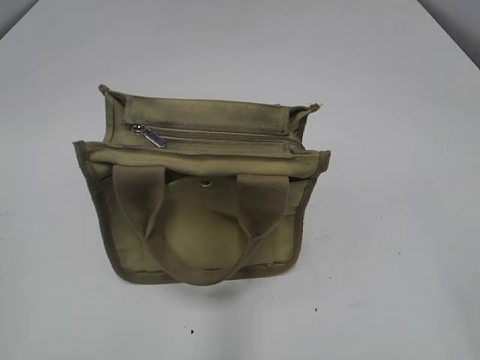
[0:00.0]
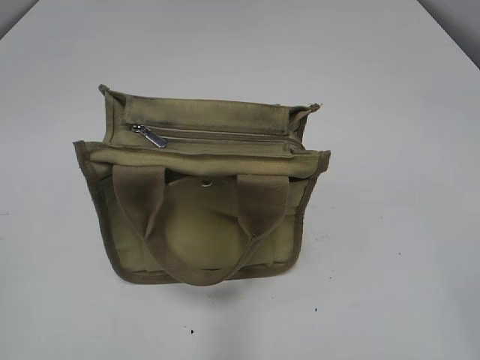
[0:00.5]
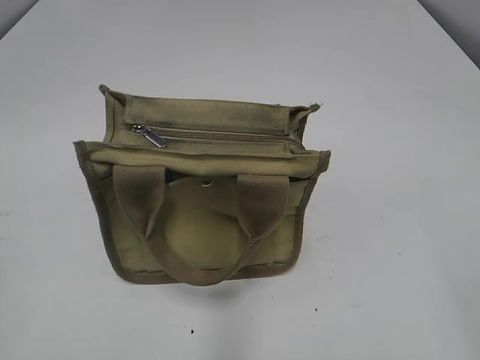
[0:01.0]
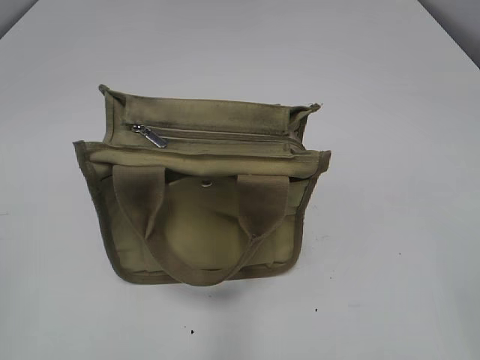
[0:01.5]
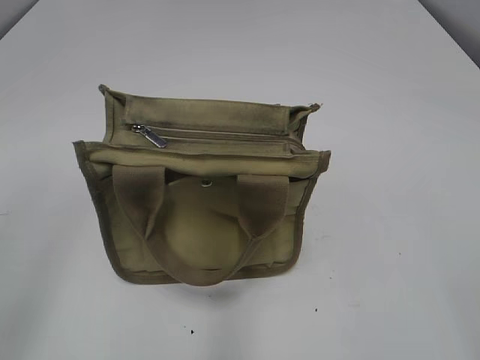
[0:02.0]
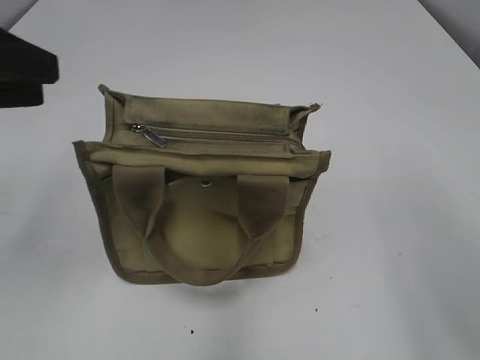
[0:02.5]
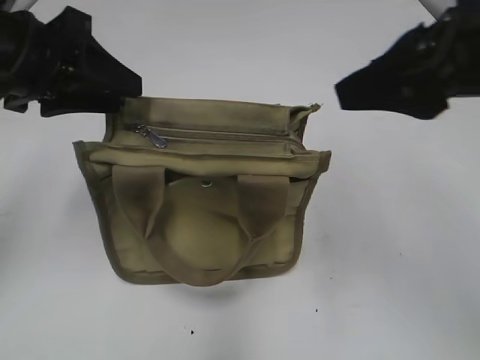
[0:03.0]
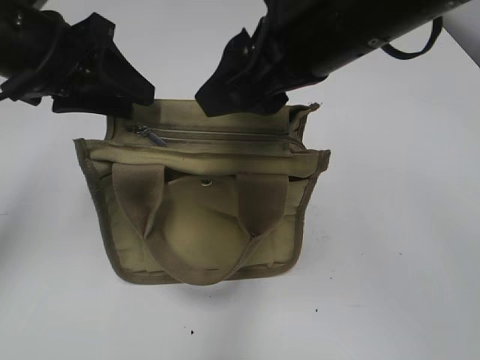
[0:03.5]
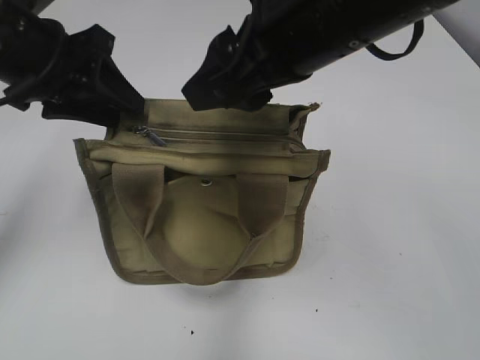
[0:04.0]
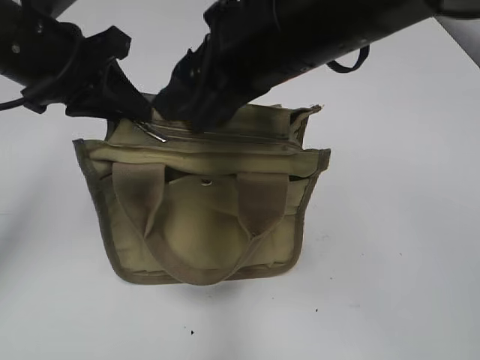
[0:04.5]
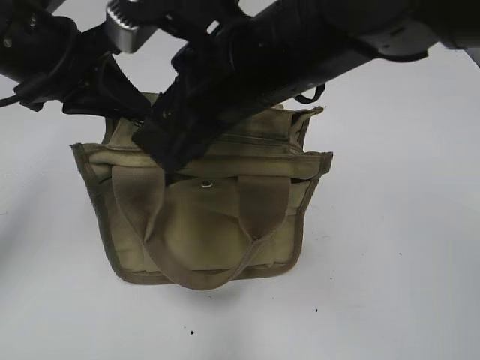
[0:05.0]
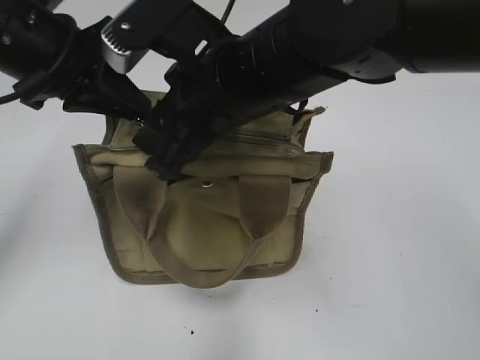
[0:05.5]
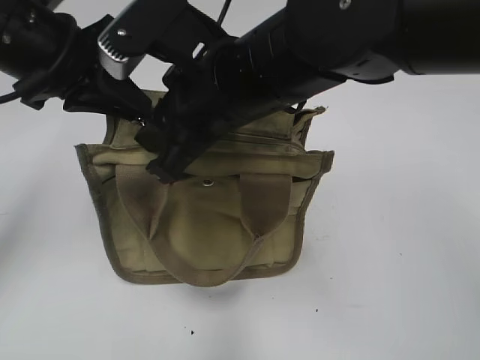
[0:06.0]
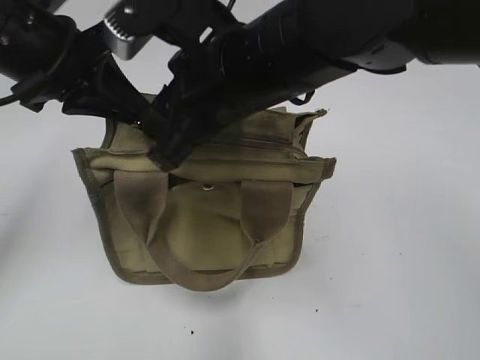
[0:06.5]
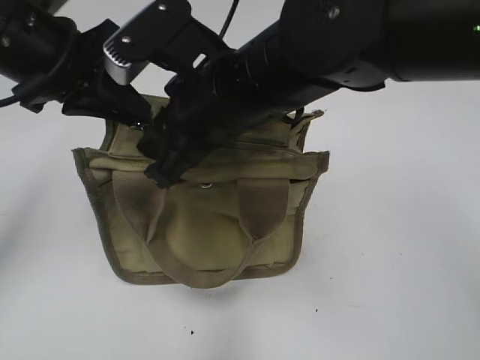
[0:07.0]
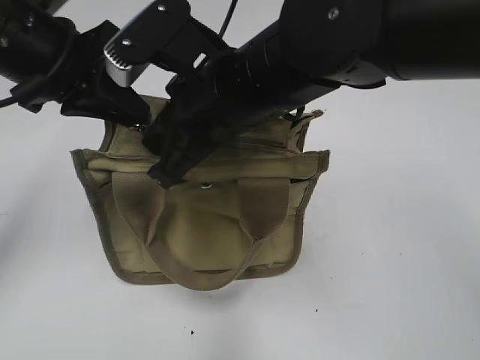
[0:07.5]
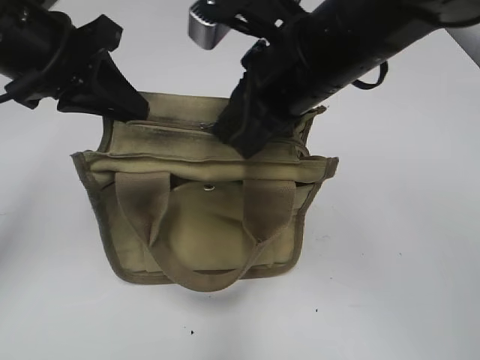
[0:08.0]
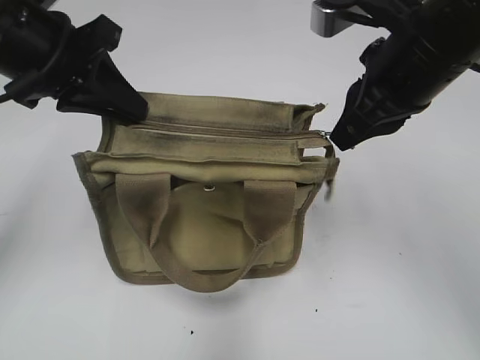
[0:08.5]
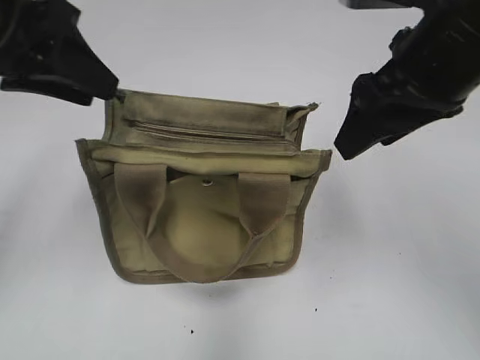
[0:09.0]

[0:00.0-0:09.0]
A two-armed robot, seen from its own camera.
Step, 0:00.0 to 0:08.5: Pull open the zipper with your right hand.
0:02.0 to 0:04.5: The left gripper heads forward and to the right, covering about 25 cm, and closes; the right gripper heads forward and to the left, covering roughly 35 cm.
0:04.5 to 0:07.0: The right gripper heads downward, covering roughly 5 cm, and closes.
0:07.0 to 0:09.0: The left gripper opens its fingers; the right gripper shifts approximately 15 cm to the right, and opens.

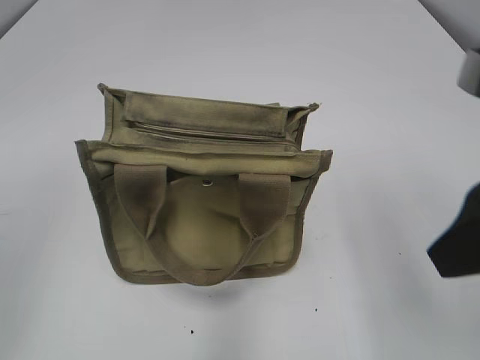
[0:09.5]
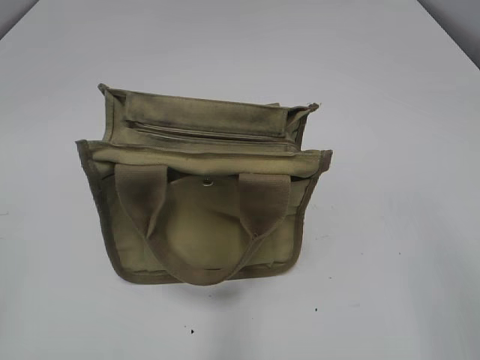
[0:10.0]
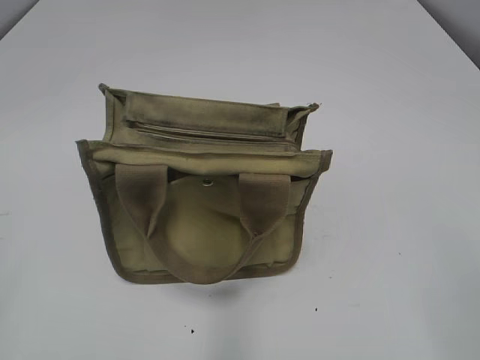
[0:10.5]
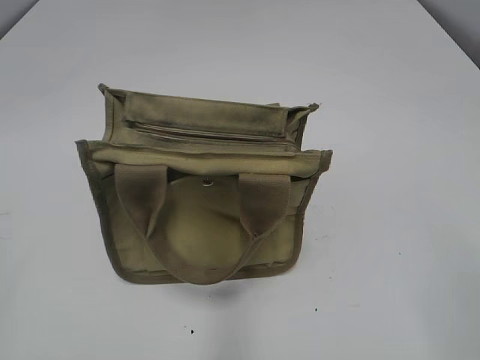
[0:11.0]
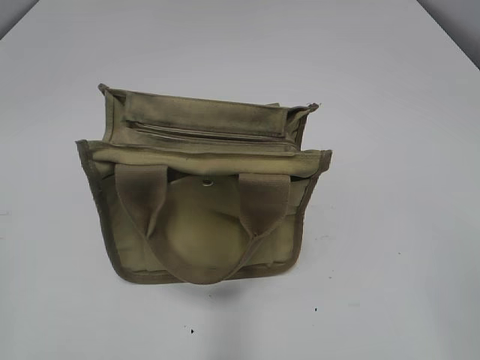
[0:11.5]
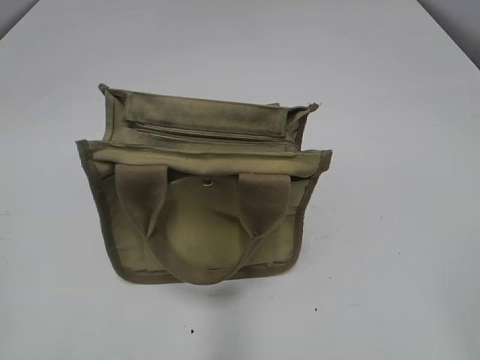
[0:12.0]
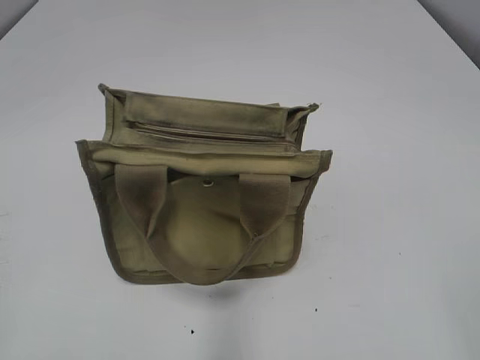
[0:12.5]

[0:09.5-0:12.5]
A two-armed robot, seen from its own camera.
0:09.5 to 0:11.0: The right gripper heads backward and to the right, covering approximately 15 cm.

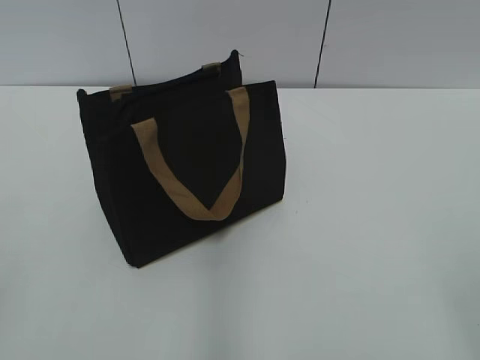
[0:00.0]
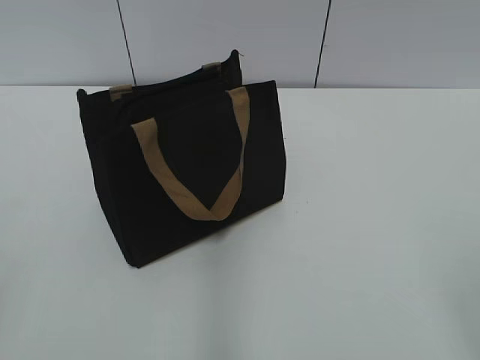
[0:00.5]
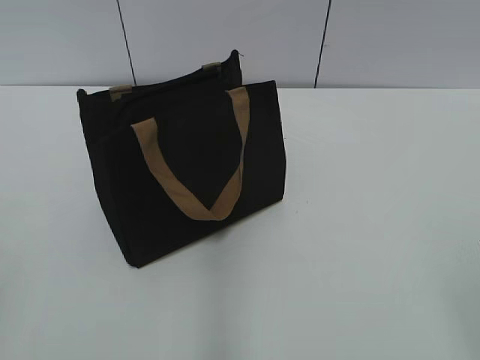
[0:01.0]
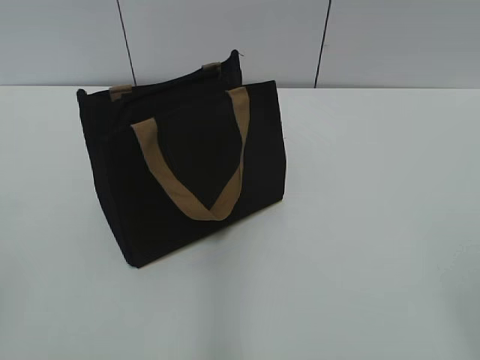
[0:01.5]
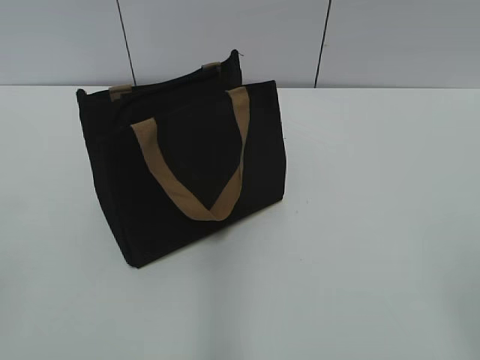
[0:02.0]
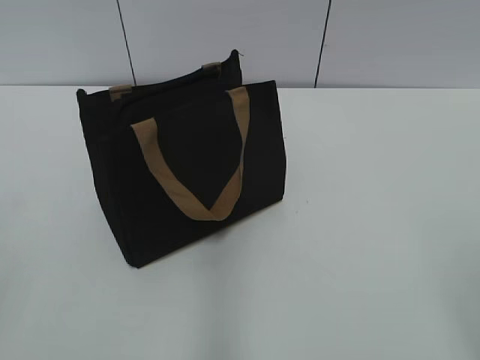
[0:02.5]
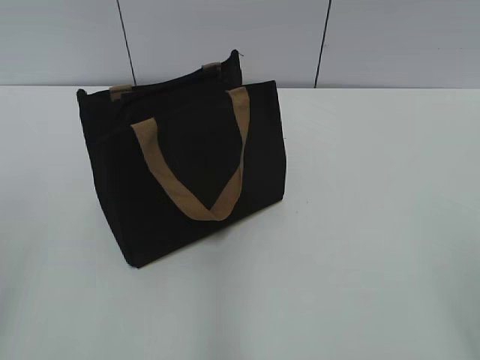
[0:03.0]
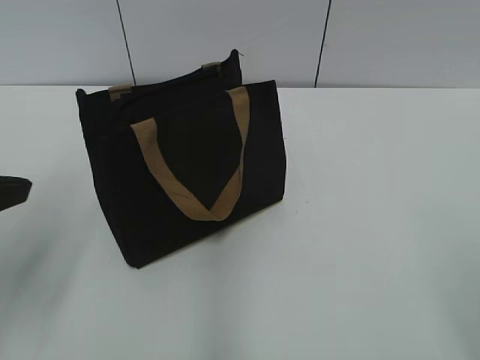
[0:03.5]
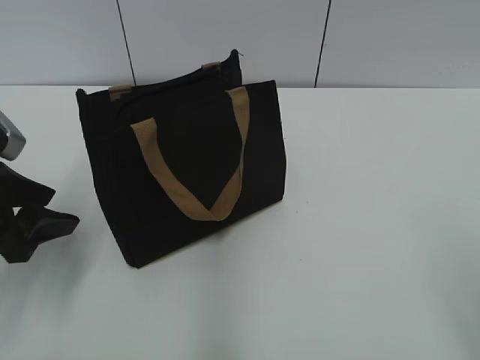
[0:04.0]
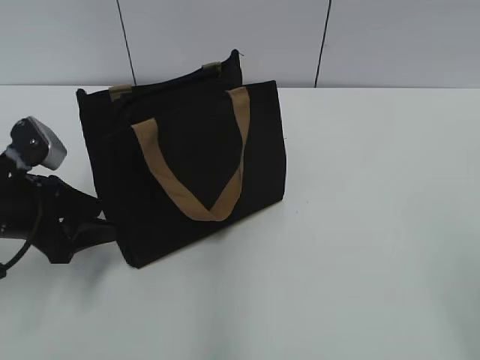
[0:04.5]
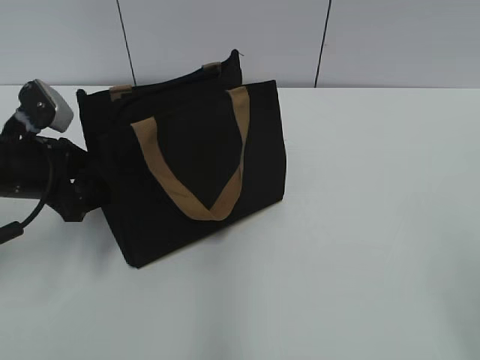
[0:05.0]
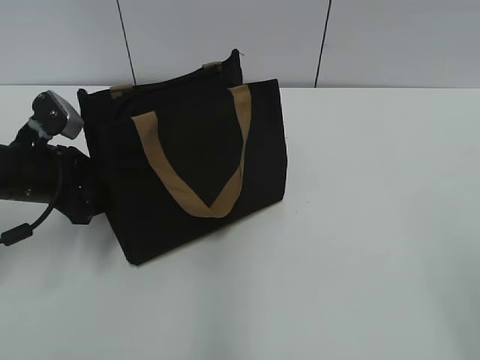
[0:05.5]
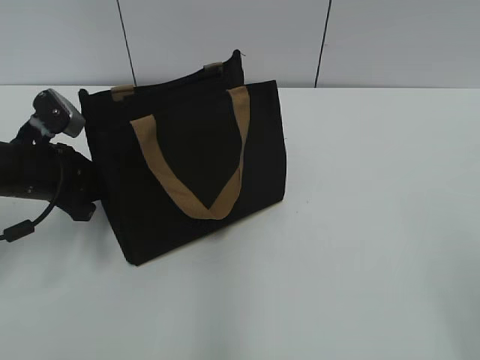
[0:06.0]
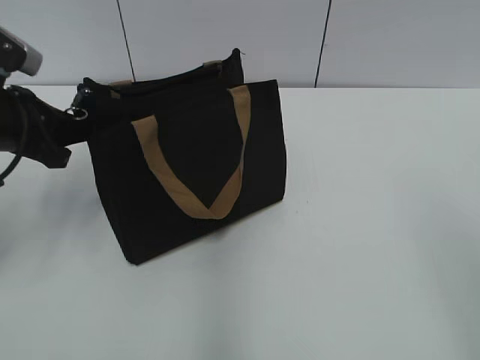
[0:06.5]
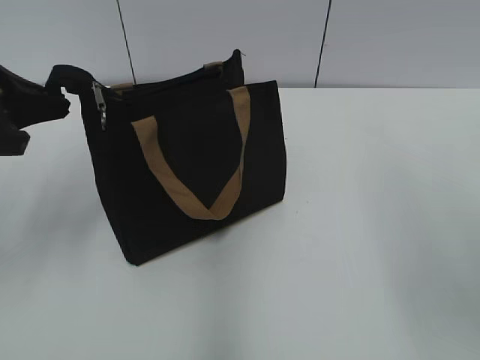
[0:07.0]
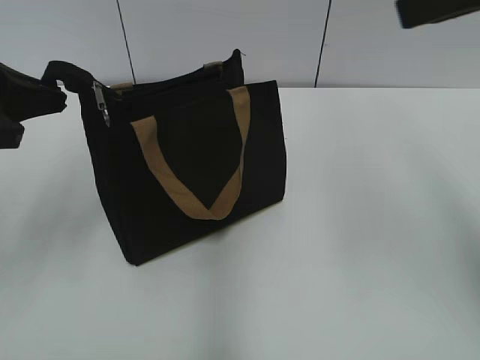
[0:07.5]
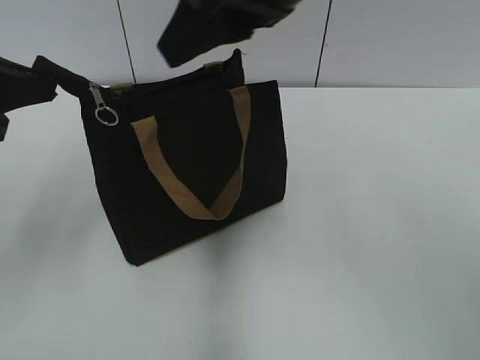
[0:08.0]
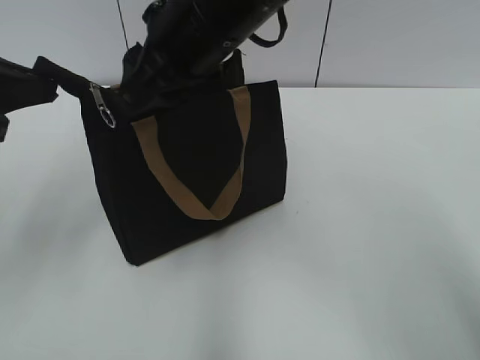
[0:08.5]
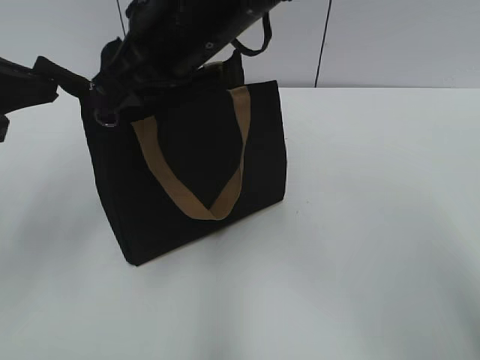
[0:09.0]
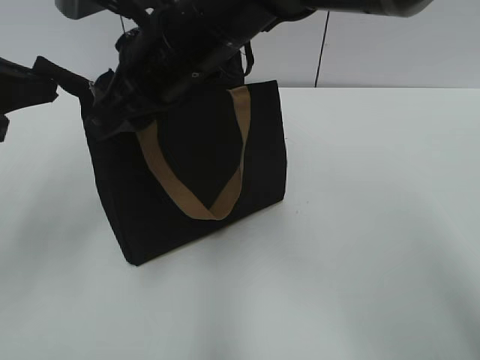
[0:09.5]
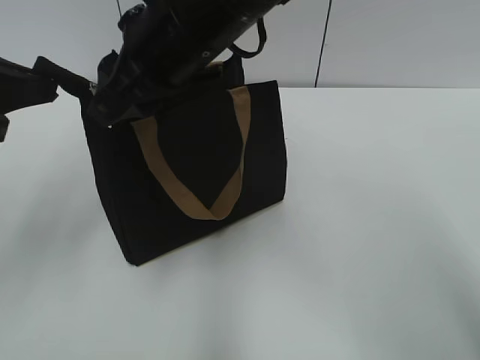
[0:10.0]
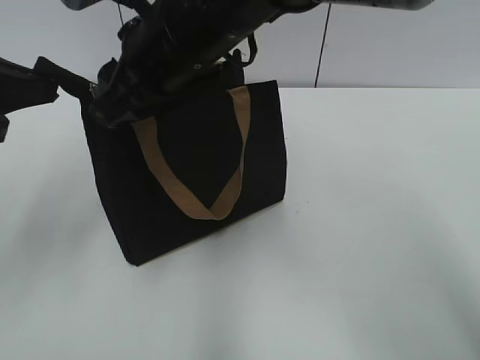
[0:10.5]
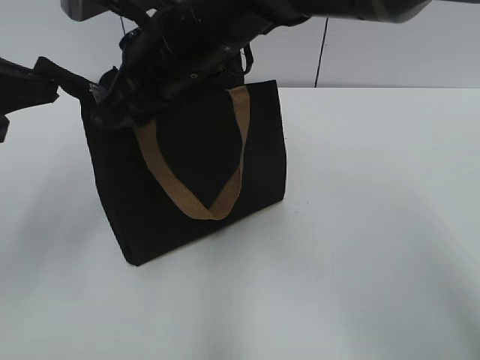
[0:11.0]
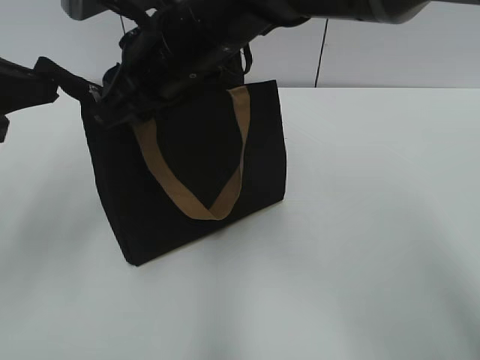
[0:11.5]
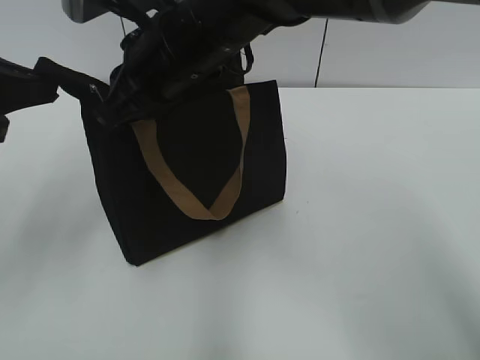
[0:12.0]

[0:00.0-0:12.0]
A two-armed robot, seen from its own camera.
0:02.0 to 0:04.0: The left gripper shifts approximately 25 cm forward and downward.
0:04.0 to 0:06.0: The left gripper heads forward, covering some 10 cm, and closes up.
0:06.0 to 0:08.0: The right gripper travels forward and to the left by approximately 35 cm; the left gripper moves upward and backward, about 15 cm.
0:08.0 to 0:10.0: The right gripper shifts some 10 cm to the left and downward.
0:10.0 to 0:12.0: The right gripper closes its fingers.

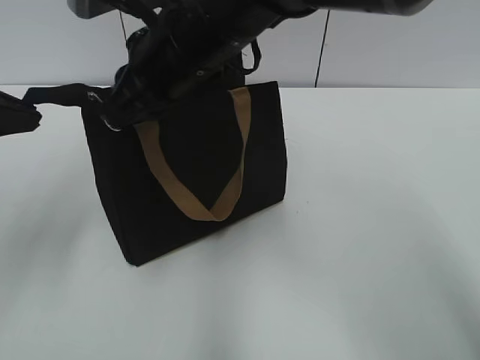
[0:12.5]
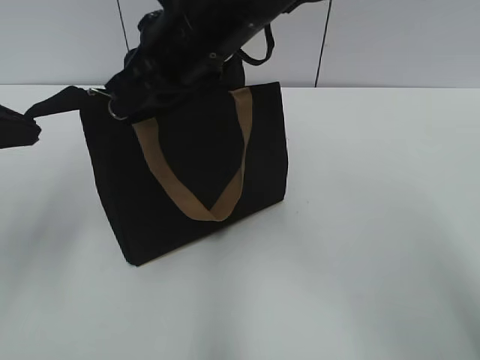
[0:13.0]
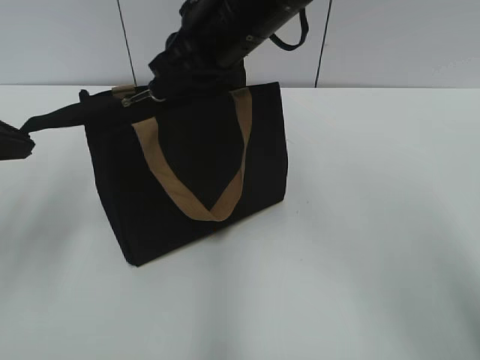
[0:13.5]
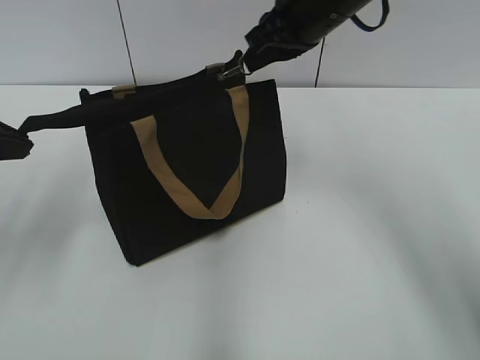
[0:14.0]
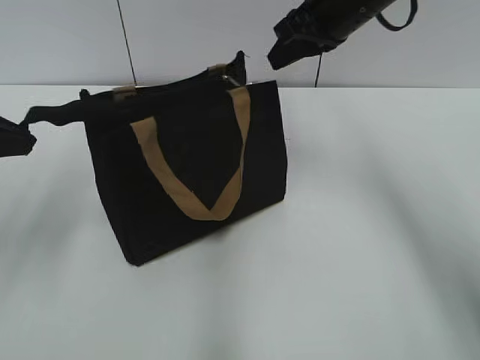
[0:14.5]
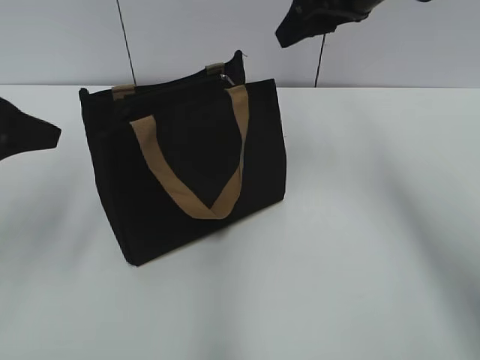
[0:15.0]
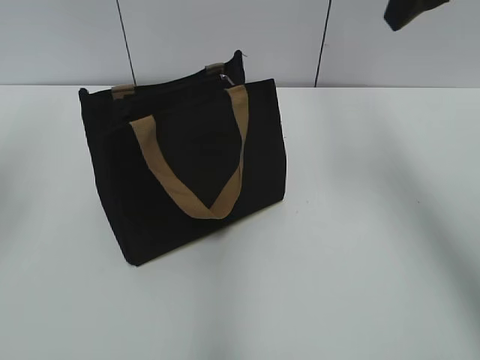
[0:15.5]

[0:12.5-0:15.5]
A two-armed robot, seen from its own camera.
Step, 0:12.5 to 0:14.5: Zip up the bag with your right hand.
0:12.5 to 0:14.0: The right gripper moves to the right and forward, roughly 15 cm.
0:14.0 to 0:15.5: The left gripper shifts approximately 10 cm upward, and opens. The right gripper moves to the right and upward, roughly 15 cm, and opens.
